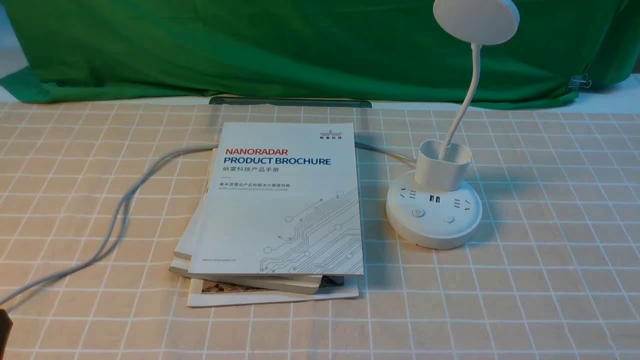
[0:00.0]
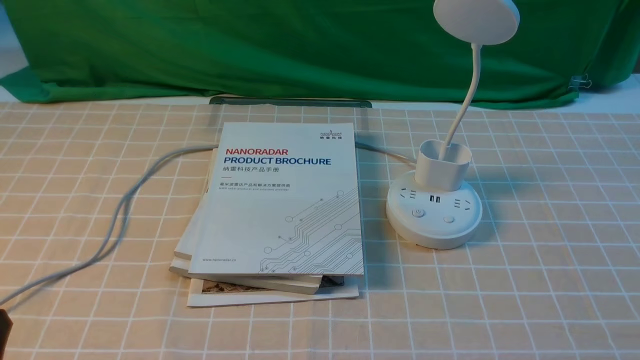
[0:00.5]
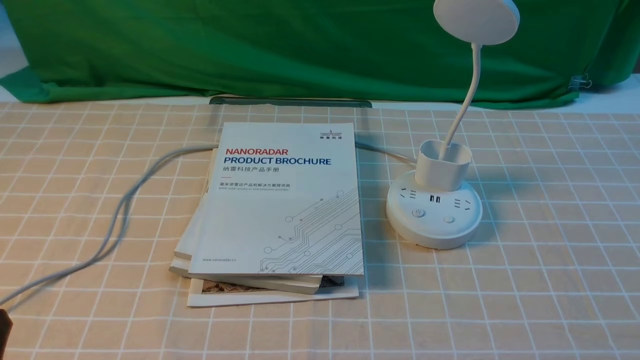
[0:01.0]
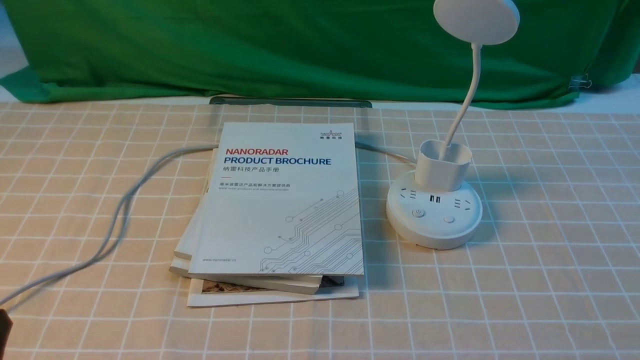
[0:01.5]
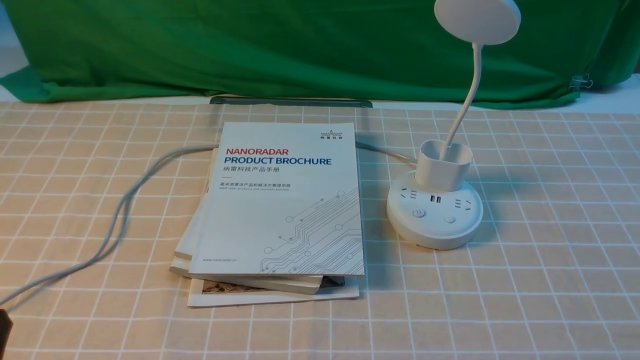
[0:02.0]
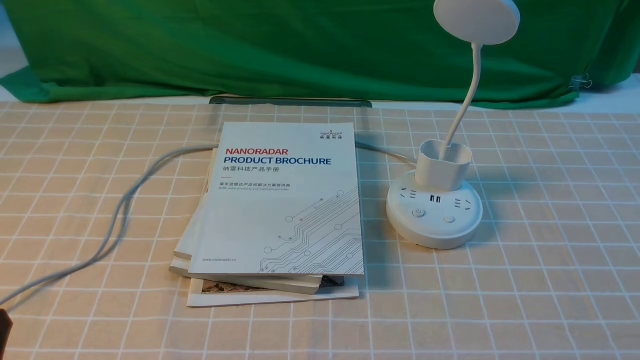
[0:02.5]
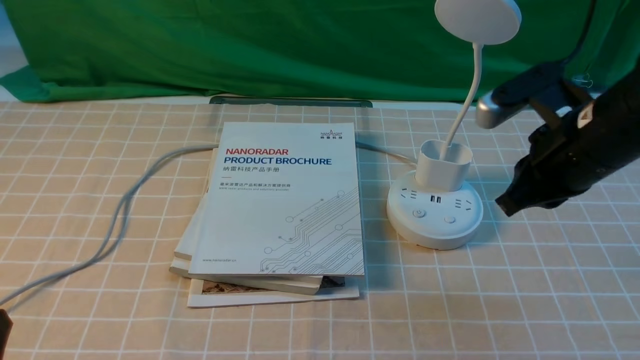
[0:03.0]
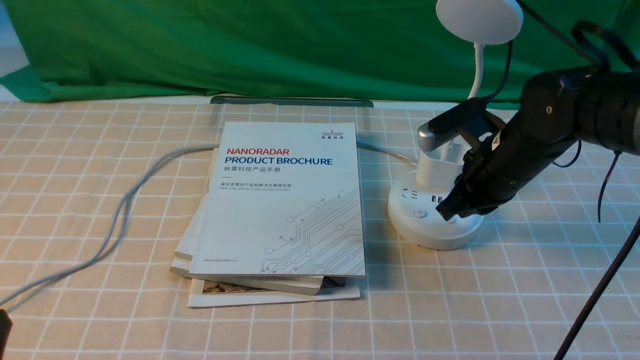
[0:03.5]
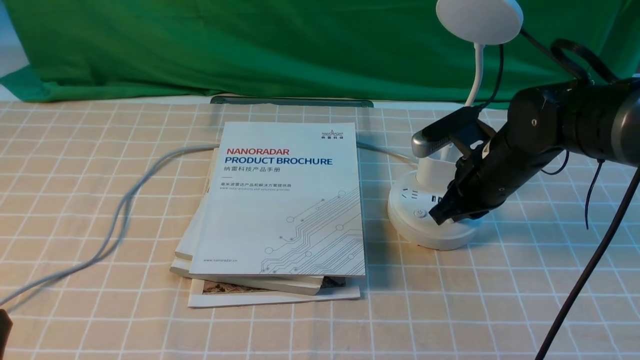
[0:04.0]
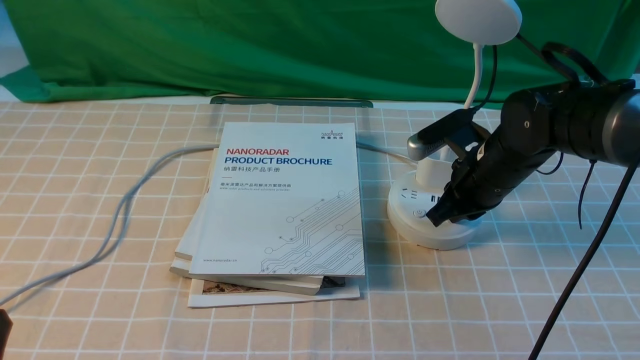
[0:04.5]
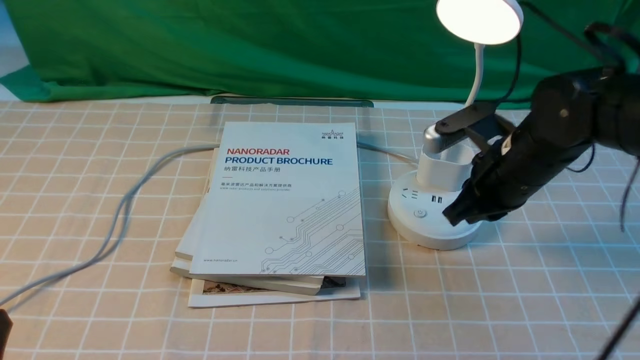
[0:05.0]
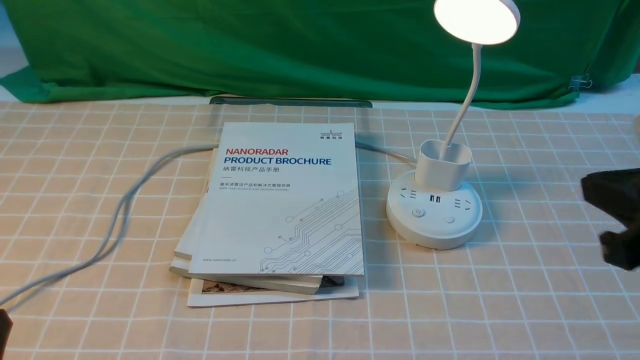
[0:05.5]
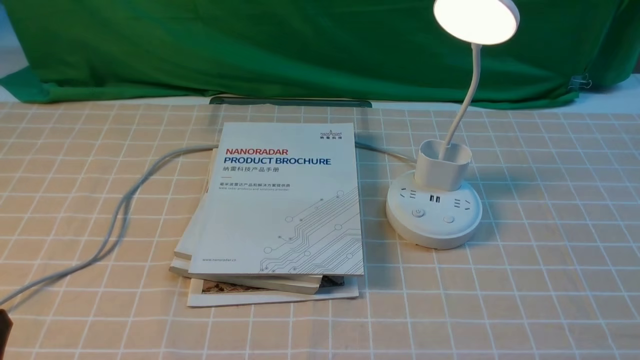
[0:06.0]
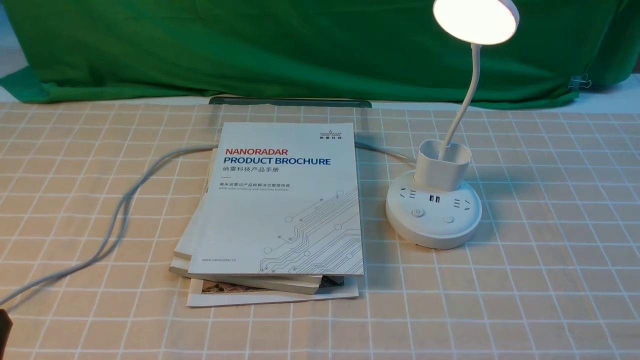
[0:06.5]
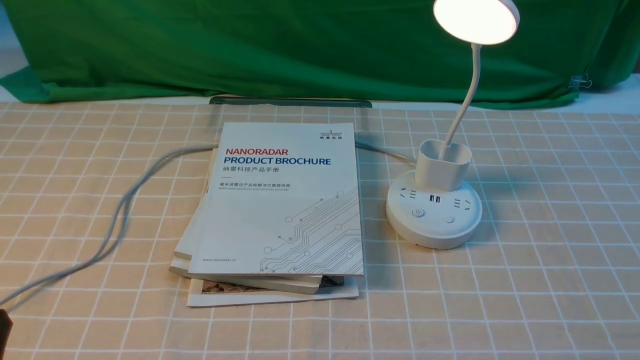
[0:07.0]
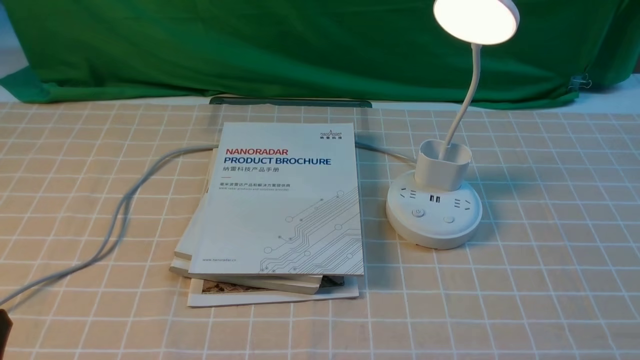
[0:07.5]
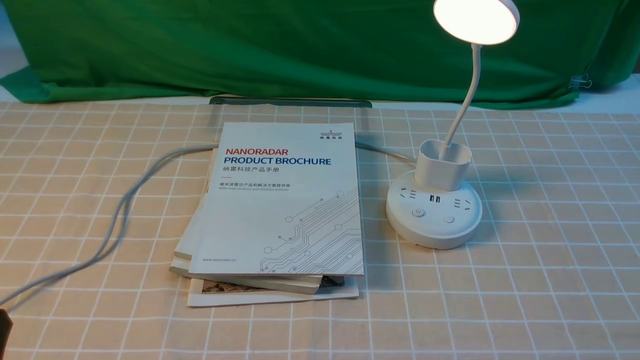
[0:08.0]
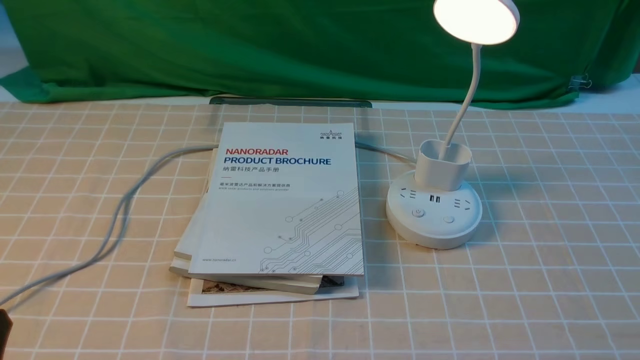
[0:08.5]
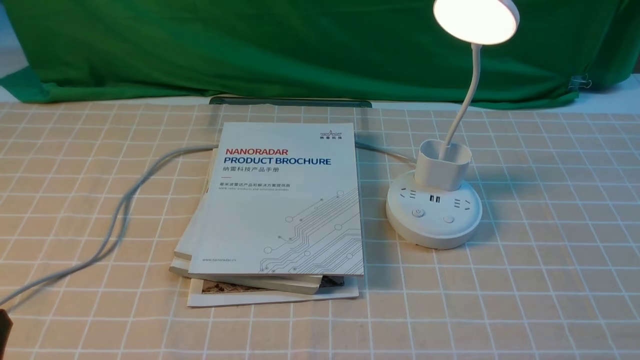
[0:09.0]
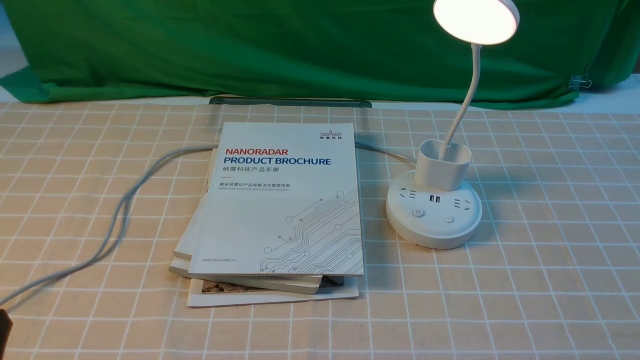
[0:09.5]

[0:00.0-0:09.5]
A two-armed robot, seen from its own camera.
Step, 0:00.0 to 0:05.0: use the right arm to press the button switch on the lamp holder.
0:02.0 to 0:04.0: The right gripper is displaced forward and to the left by roughly 35 cm, and closes its fingers.
0:04.0 to 0:05.5: The right gripper travels backward and upward by about 25 cm.
0:05.5 to 0:07.5: The right gripper travels downward, backward and to the right by about 20 cm, and opens.
0:07.5 to 0:09.5: Both grippers stay put.
